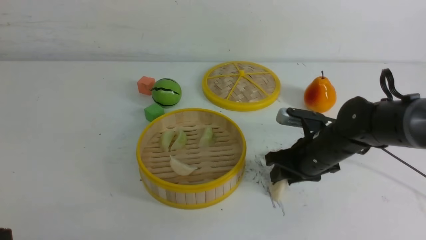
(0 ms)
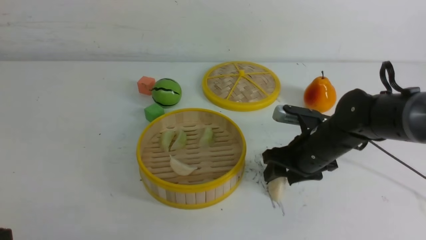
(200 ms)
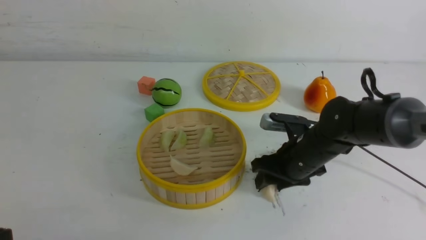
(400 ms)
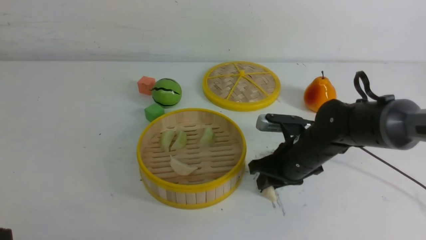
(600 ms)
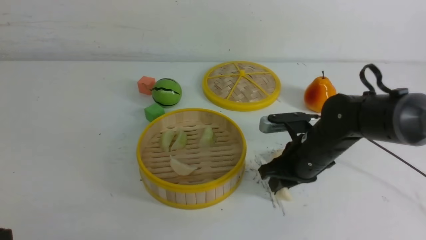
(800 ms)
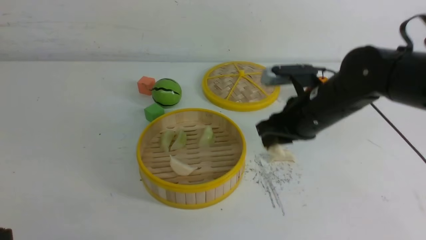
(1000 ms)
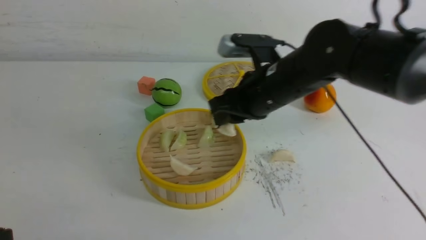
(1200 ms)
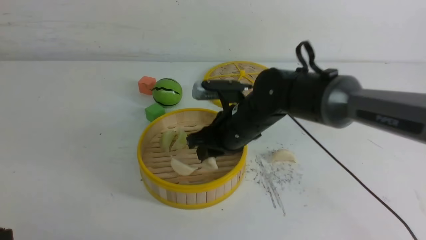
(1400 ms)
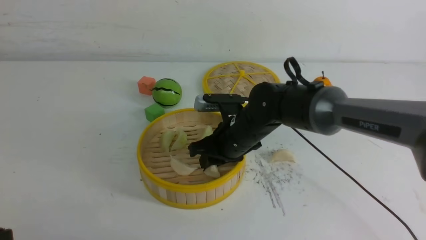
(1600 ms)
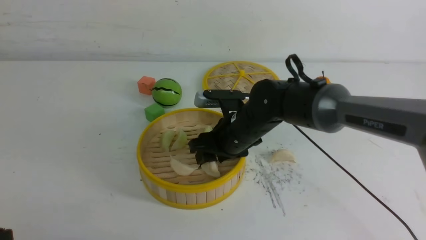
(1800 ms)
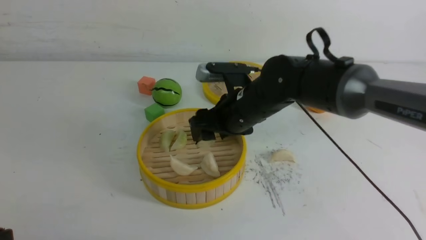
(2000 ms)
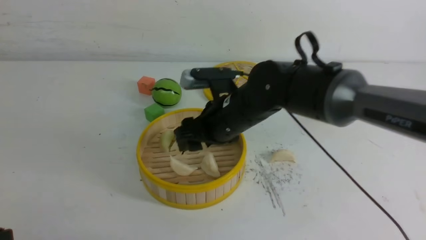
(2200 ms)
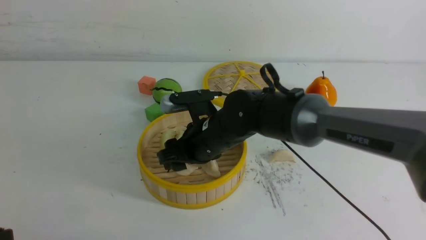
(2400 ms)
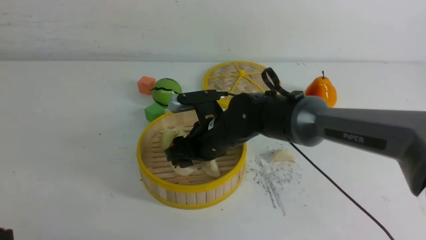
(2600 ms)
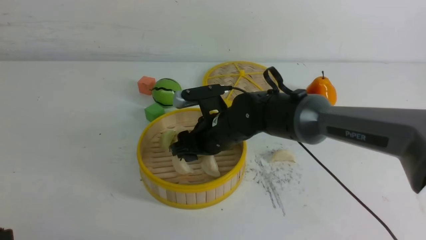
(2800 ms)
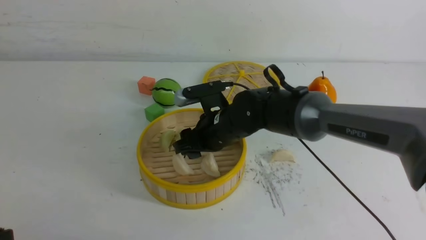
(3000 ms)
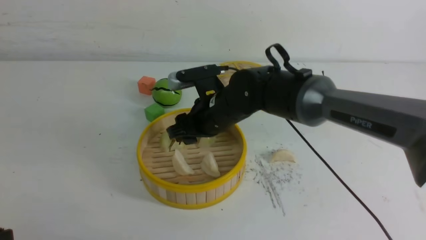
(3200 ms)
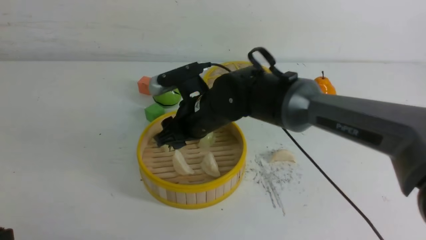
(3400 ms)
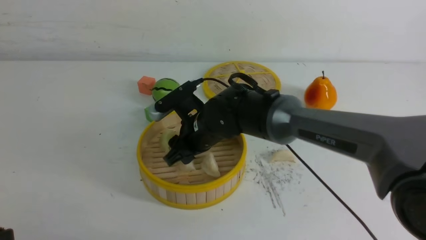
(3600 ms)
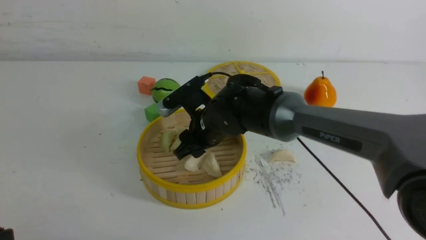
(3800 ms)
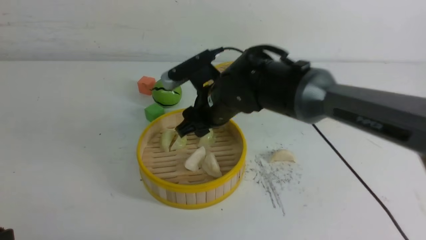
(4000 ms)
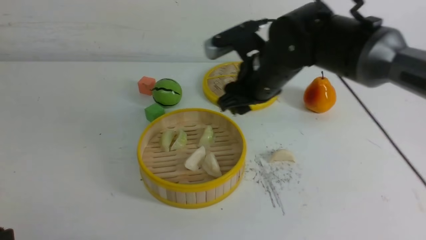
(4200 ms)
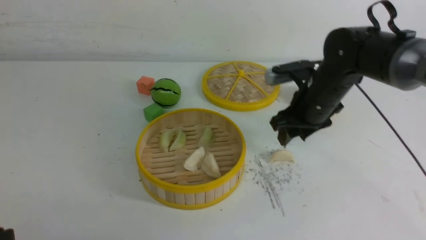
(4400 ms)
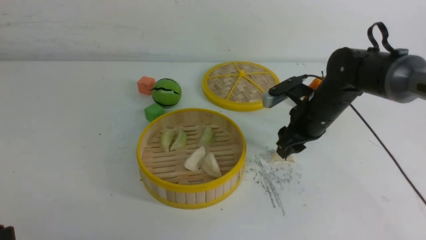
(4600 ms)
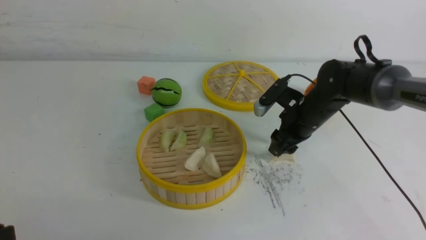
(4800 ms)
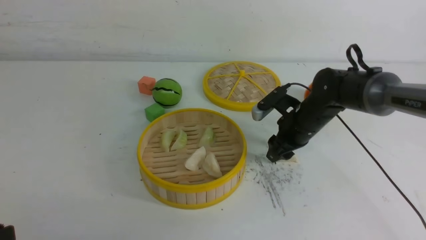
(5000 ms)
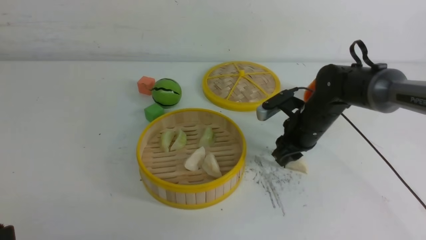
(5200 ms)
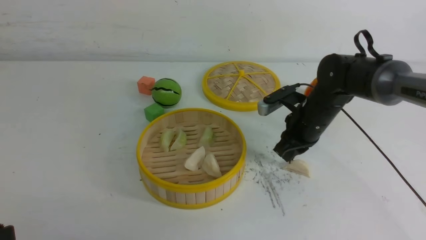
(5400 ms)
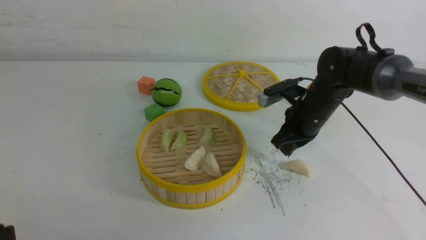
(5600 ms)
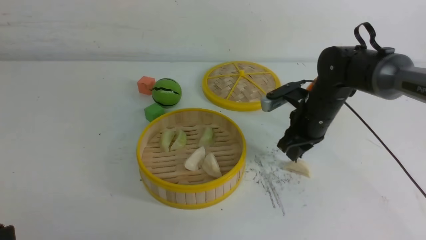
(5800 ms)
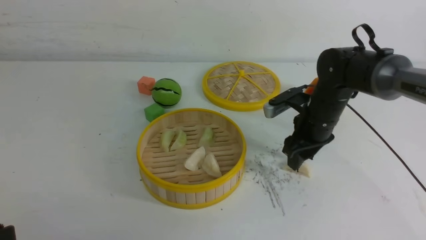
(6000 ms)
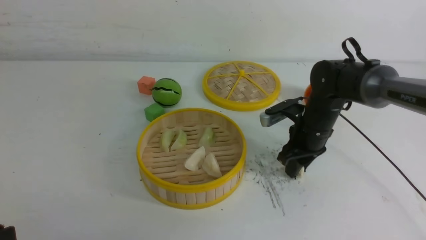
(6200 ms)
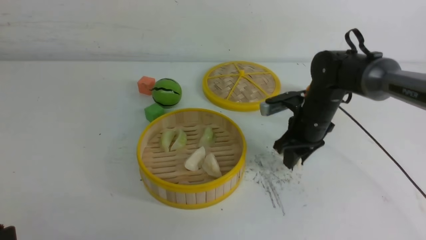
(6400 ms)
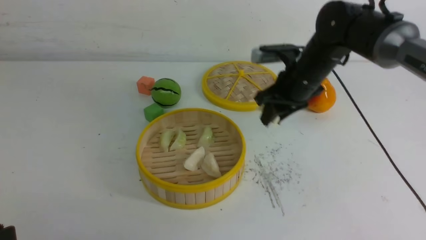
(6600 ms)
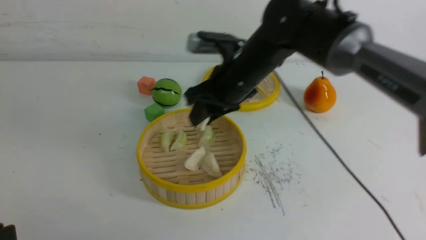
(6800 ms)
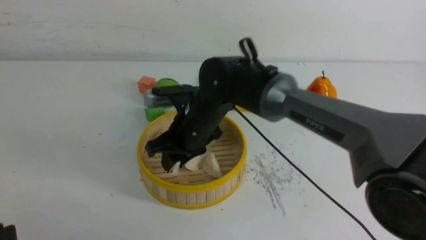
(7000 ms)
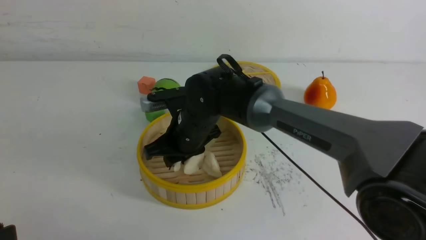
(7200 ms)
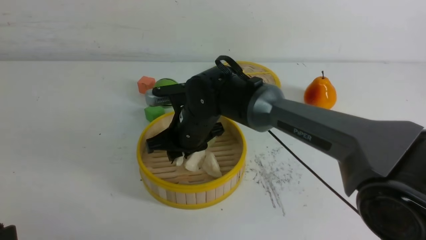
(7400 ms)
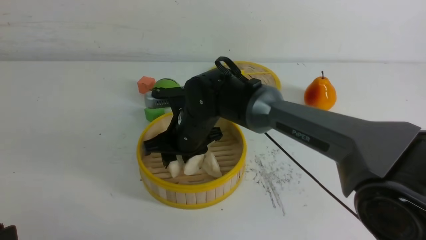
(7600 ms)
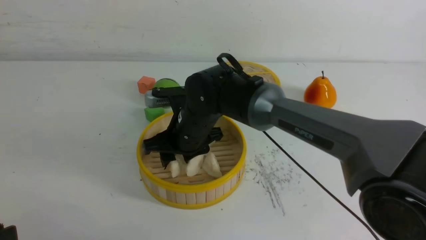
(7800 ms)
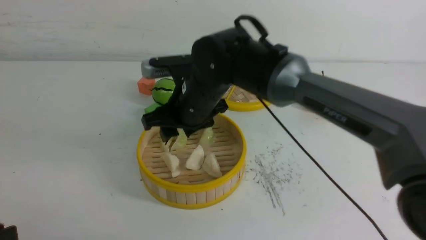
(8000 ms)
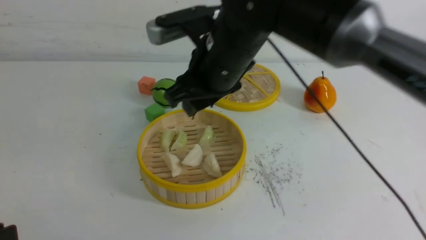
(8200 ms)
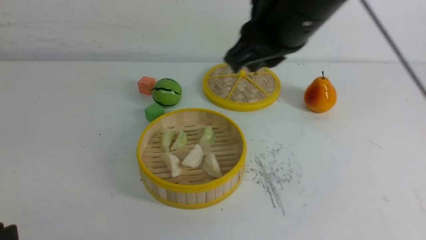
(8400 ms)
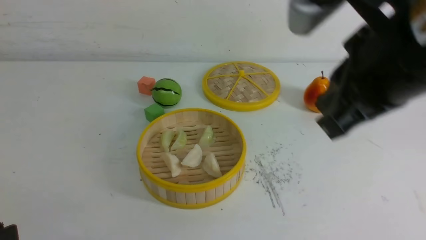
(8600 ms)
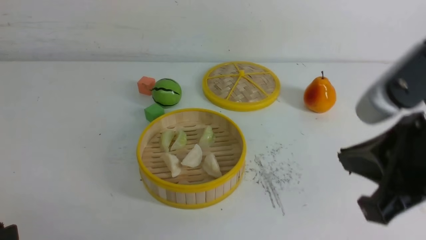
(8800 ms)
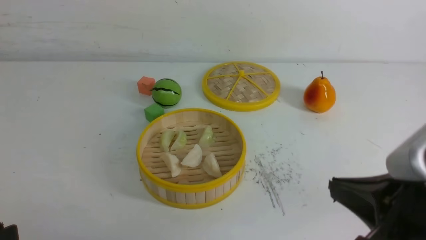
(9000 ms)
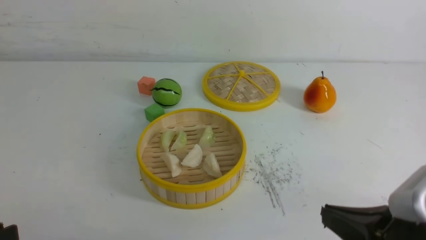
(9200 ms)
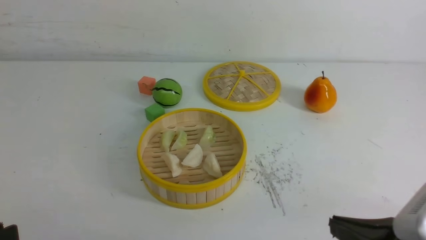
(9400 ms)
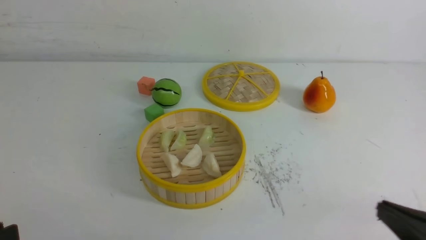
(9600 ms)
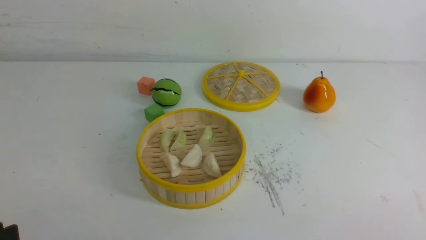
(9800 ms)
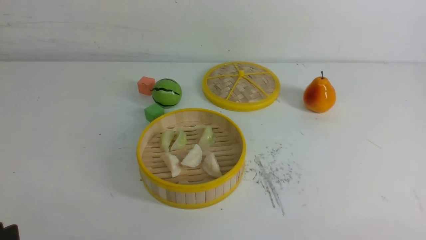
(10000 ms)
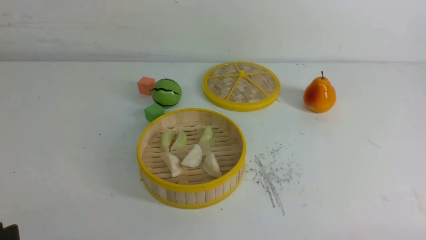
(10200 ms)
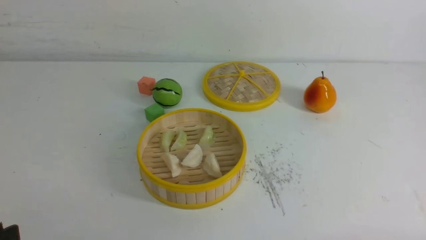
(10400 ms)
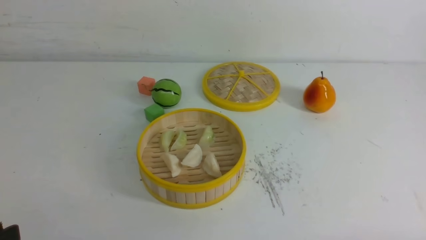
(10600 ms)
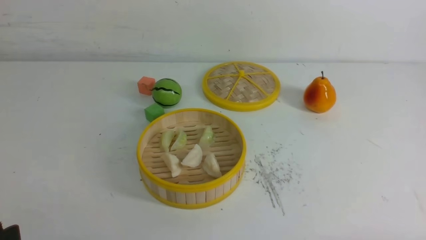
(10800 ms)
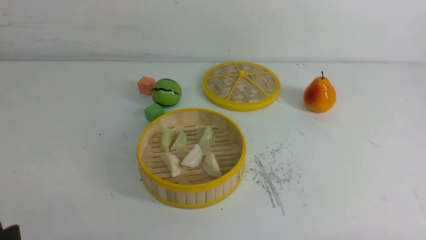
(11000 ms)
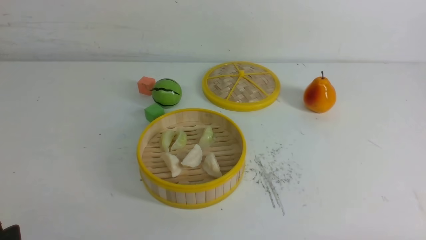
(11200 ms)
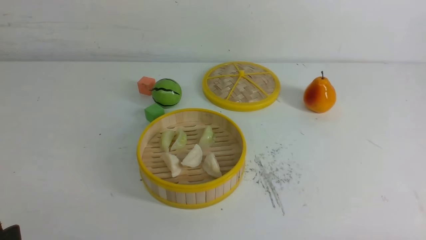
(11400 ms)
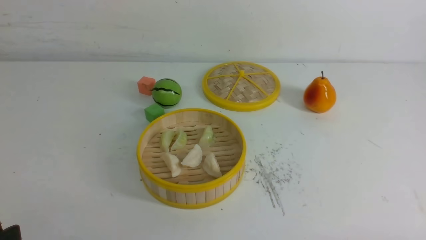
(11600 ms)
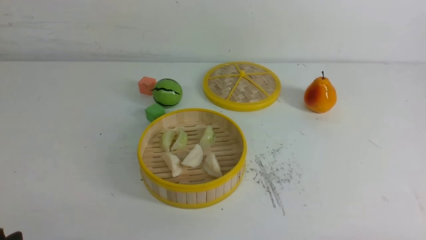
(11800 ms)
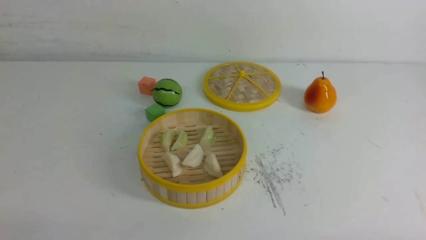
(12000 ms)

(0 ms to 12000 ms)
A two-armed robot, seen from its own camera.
Task of the whole recording: put the dumplings into the steamer on the white table.
Step, 400 ms - 1600 ms: use the right arm to put the dumpling into the steamer.
Step, 2000 ms - 6200 ms: use the right arm to grab a dumpling.
Step, 6400 ms - 7600 ms: use the right arm to put the dumpling into the steamer.
0 ms - 1600 ms: The right gripper travels to the left by about 15 cm.
1600 ms - 3000 ms: The grippers move only a little.
3000 ms - 4400 ms: The right gripper goes some 15 cm to the right.
4400 ms - 6000 ms: The right gripper travels downward by approximately 5 cm, and closes and opens again.
6000 ms - 7600 ms: The right gripper travels to the left by some 20 cm.
7600 ms - 9000 ms: The right gripper heads backward and to the right, covering about 35 cm, and closes.
9000 ms - 10400 ms: The right gripper goes roughly 20 cm downward, to the right and backward.

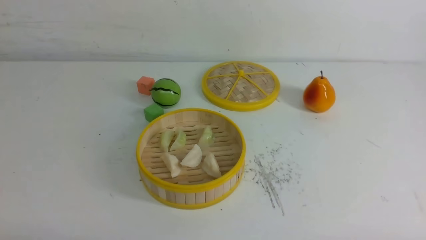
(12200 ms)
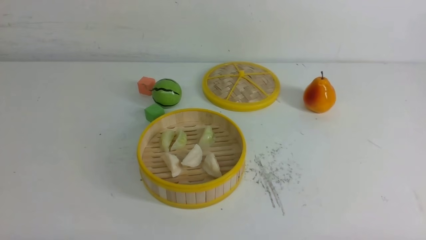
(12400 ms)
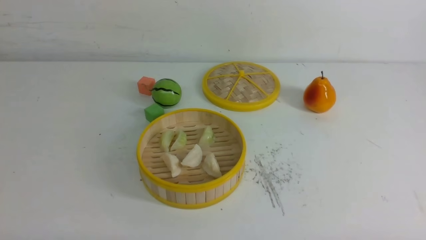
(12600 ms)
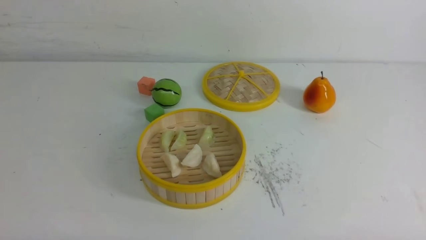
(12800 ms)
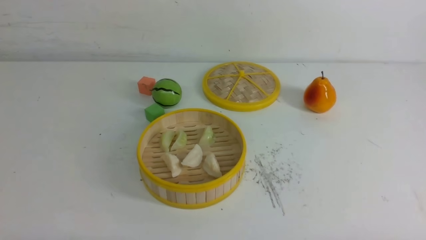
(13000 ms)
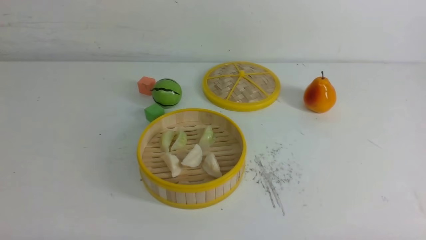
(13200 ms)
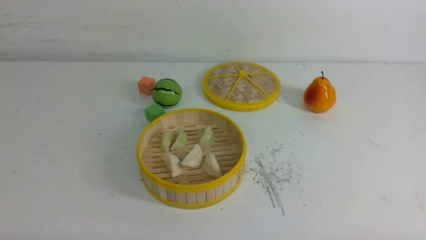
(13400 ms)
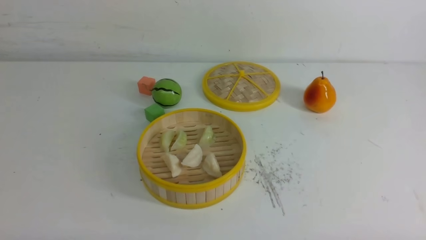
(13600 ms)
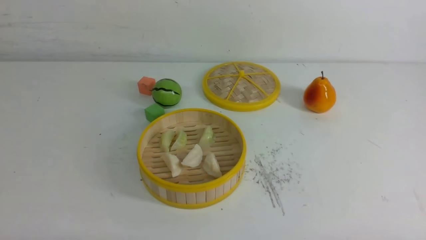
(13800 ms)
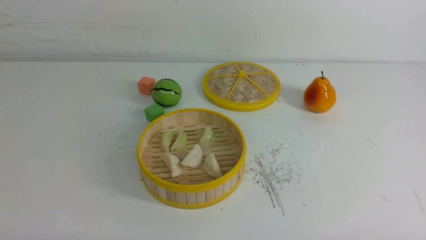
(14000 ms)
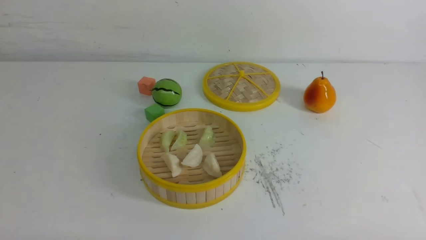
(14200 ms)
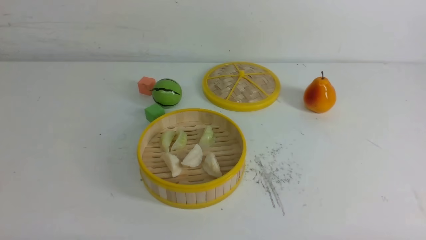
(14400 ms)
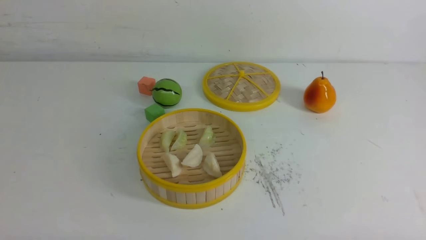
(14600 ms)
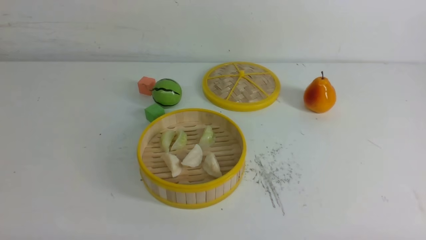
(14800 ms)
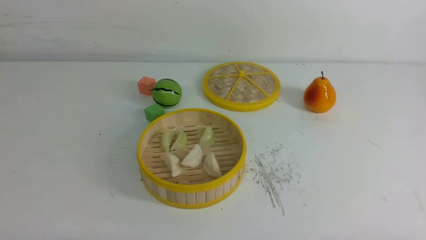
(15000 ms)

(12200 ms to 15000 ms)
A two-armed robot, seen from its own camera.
Task of the whole recording: put the dumplings into the steamer on the white table.
13600 ms - 15000 ms: The two grippers keep their place.
